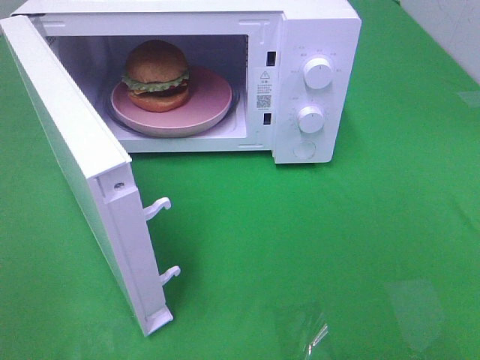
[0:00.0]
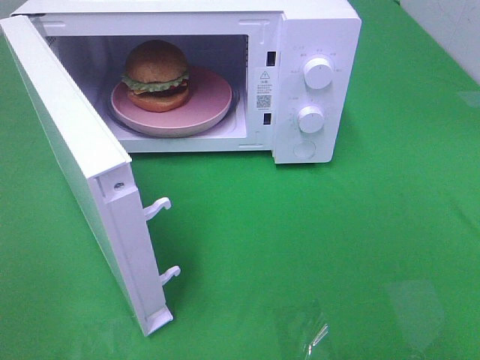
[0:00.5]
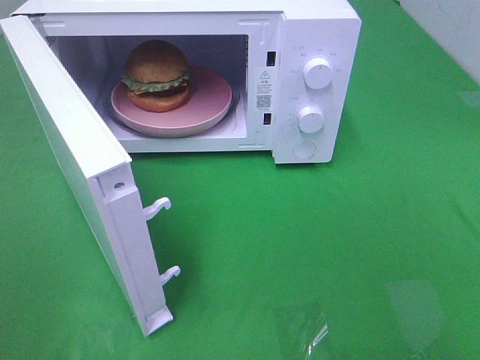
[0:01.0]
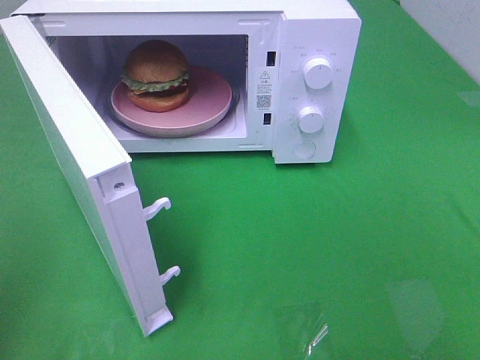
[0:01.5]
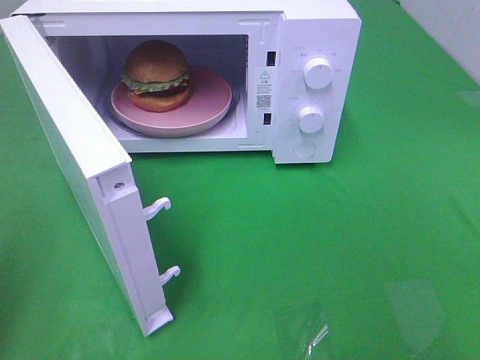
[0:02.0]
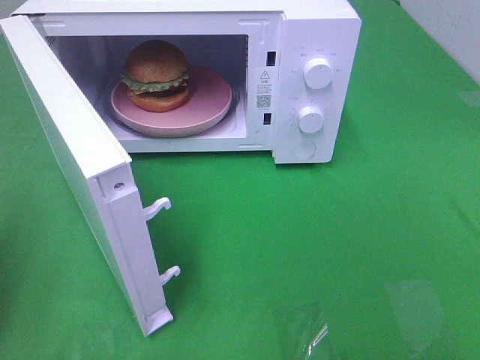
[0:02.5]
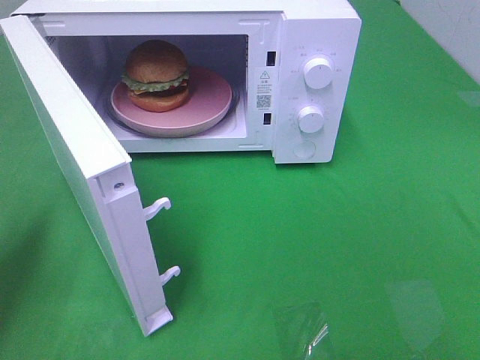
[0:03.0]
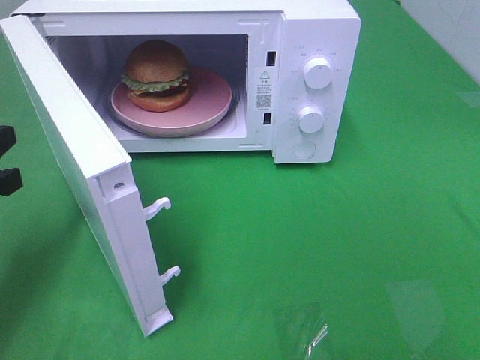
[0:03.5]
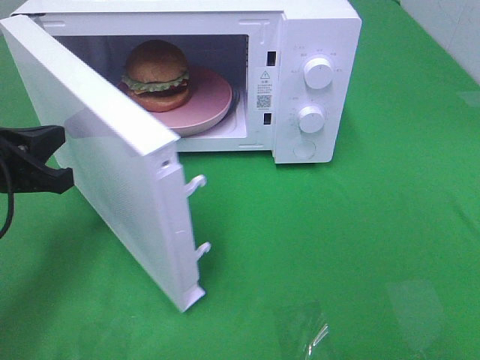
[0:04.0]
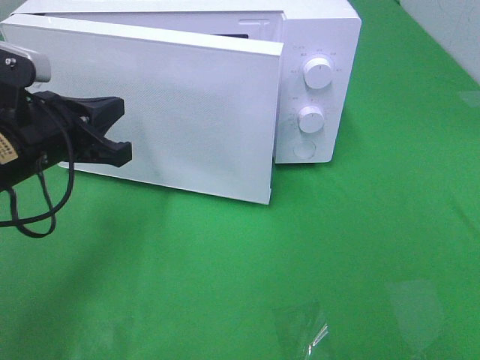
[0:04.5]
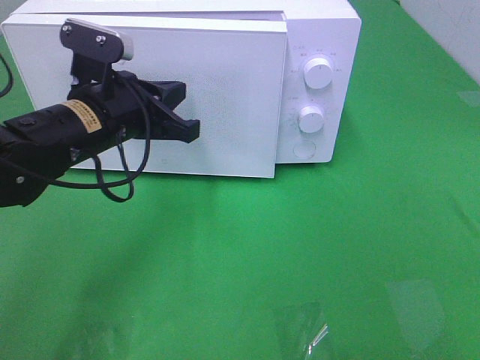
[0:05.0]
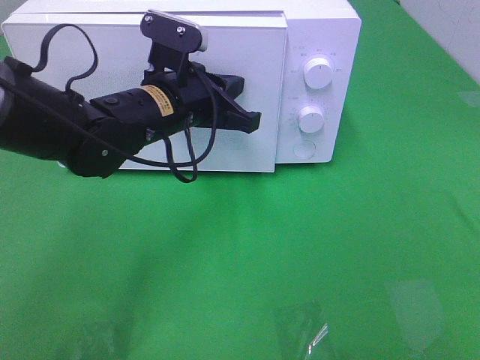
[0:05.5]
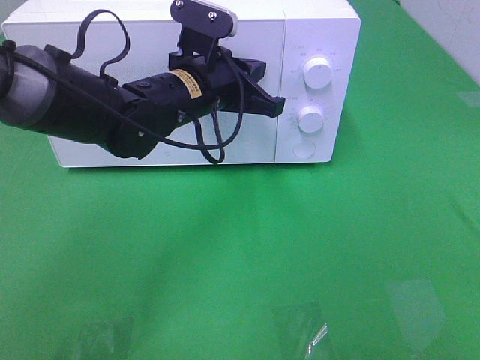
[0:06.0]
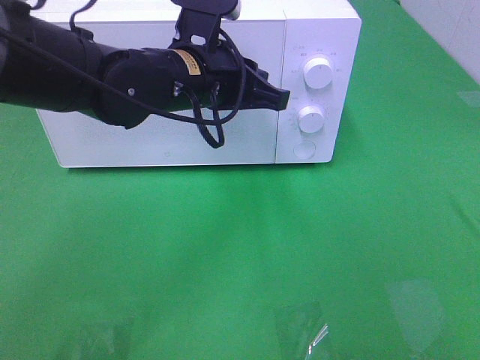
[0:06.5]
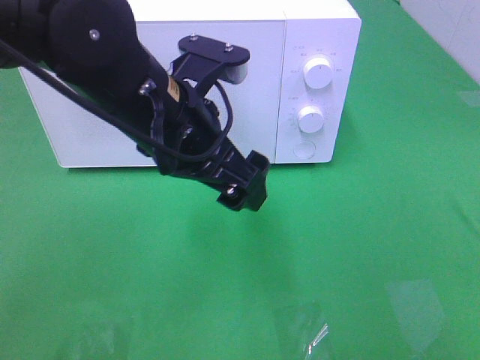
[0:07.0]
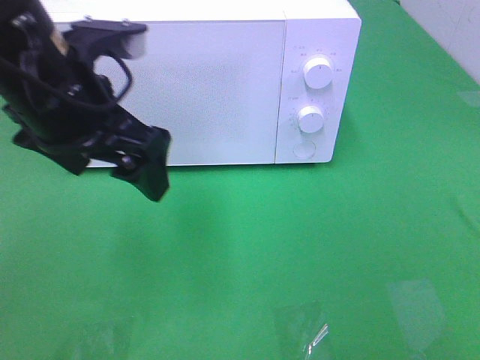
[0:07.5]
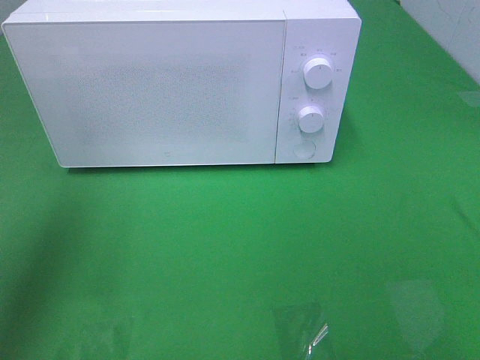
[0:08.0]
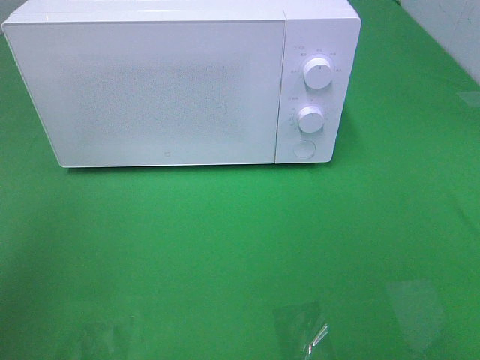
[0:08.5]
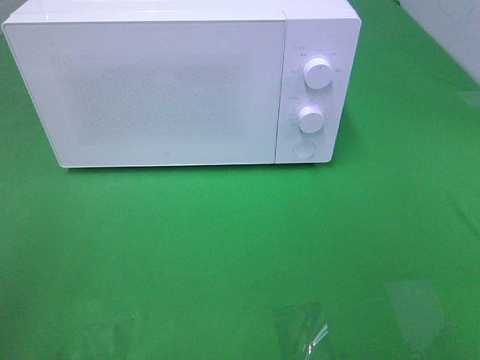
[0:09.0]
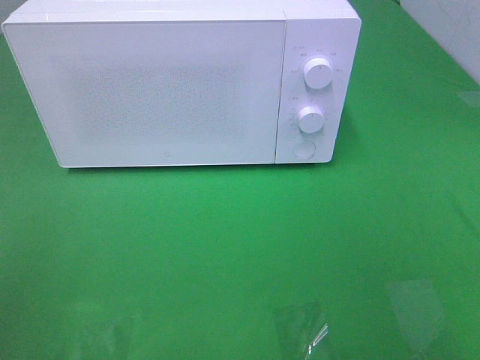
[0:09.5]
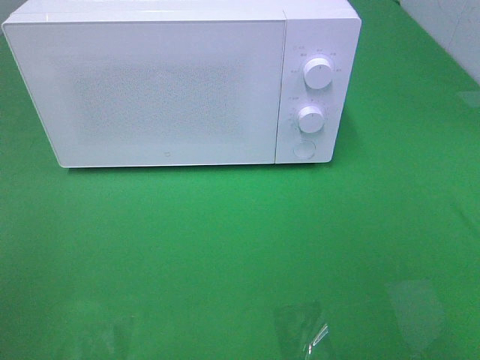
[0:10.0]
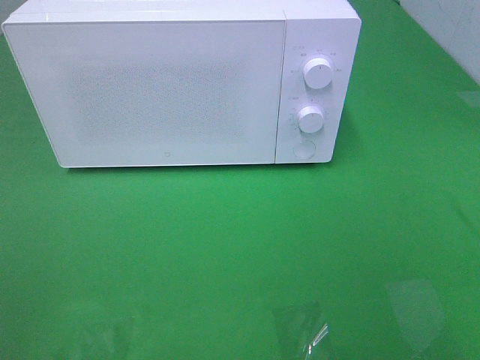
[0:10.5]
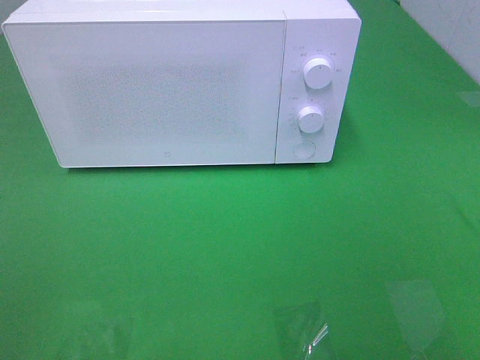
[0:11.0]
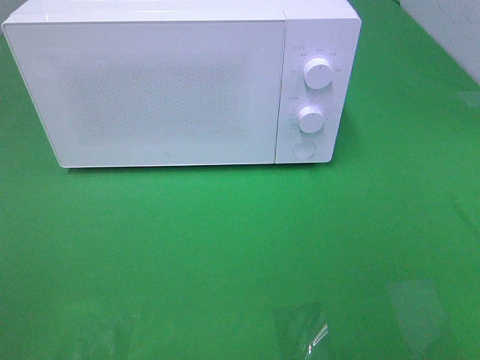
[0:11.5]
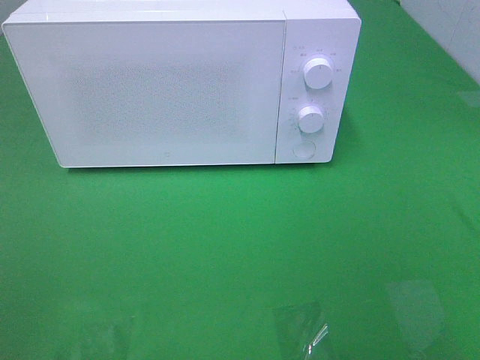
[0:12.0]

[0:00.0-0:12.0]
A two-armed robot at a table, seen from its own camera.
Task of the whole recording: Heat the burger.
Step, 0:00.0 to 0:06.0: Left hand: close the microwave door.
0:02.0 to 0:04.0: The left gripper shifts about 20 cm forward, downward and to the right.
0:04.0 to 0:06.0: The left gripper moves to the right and forward, approximately 25 cm.
0:06.0 to 0:08.0: The left gripper is displaced to the left, upward and backward by approximately 35 cm, and opens its fingers.
0:08.0 to 0:10.0: The left gripper goes some 20 cm backward and downward.

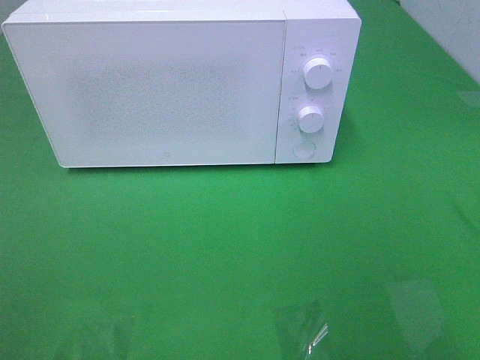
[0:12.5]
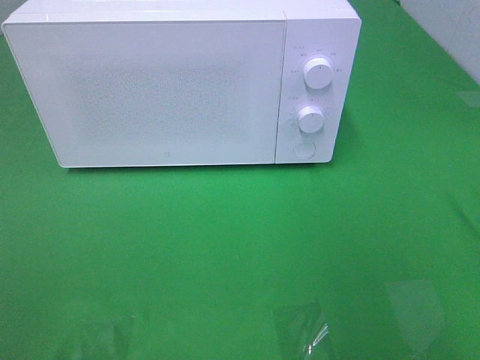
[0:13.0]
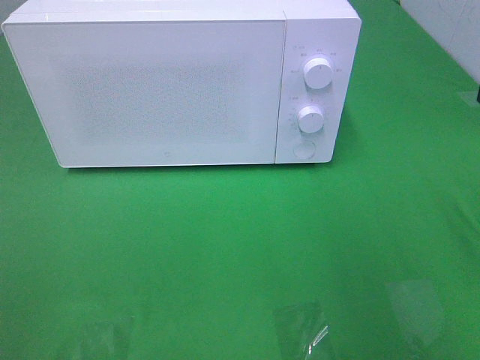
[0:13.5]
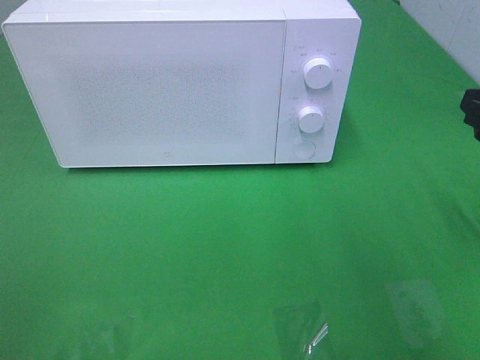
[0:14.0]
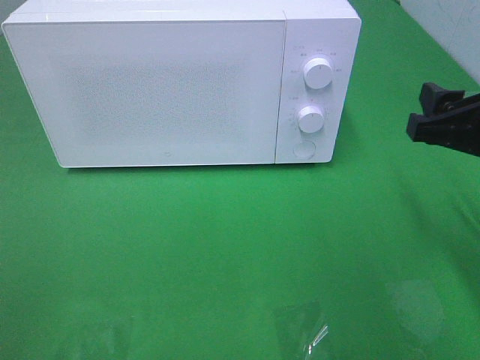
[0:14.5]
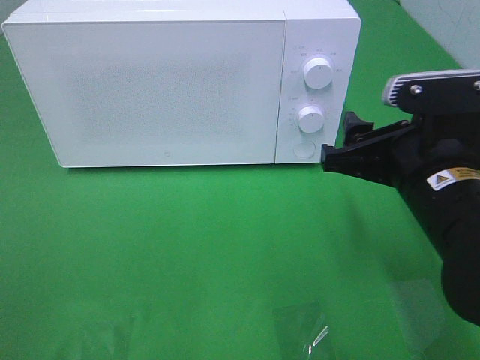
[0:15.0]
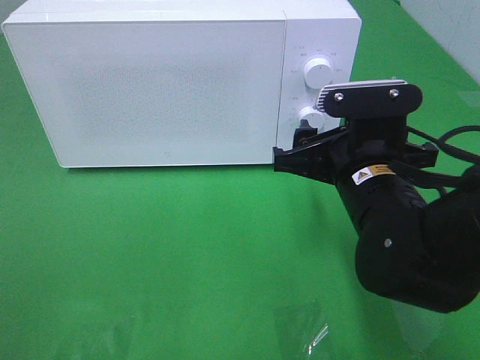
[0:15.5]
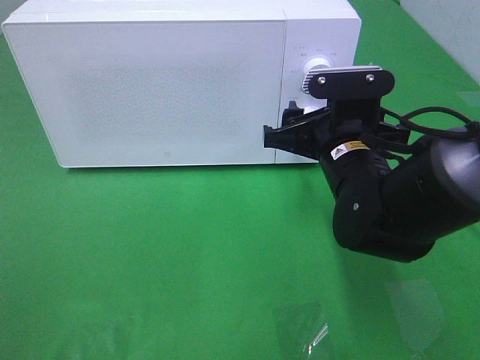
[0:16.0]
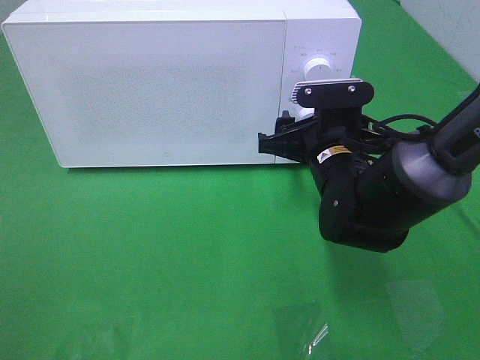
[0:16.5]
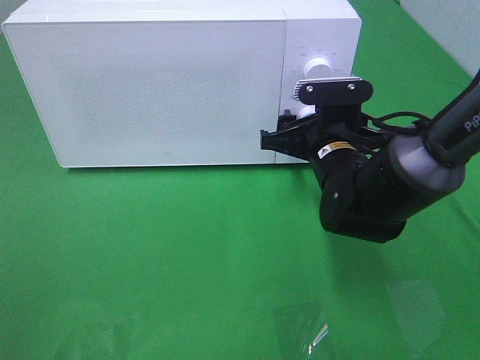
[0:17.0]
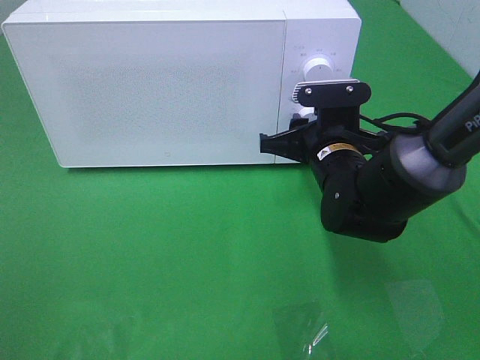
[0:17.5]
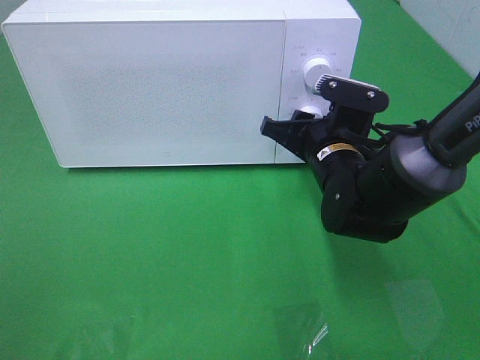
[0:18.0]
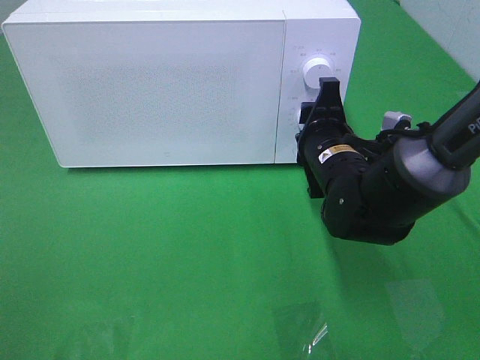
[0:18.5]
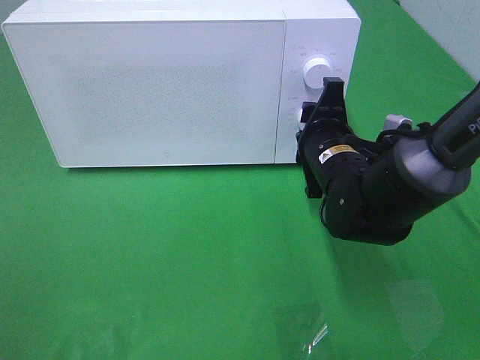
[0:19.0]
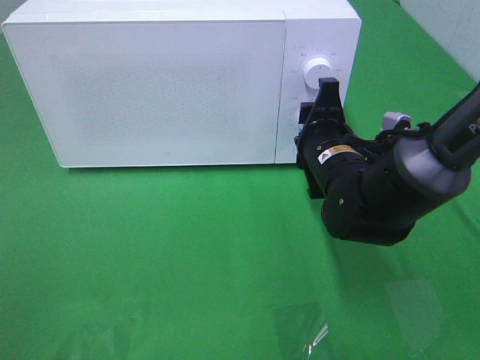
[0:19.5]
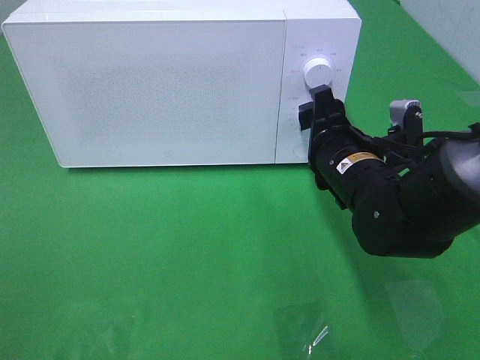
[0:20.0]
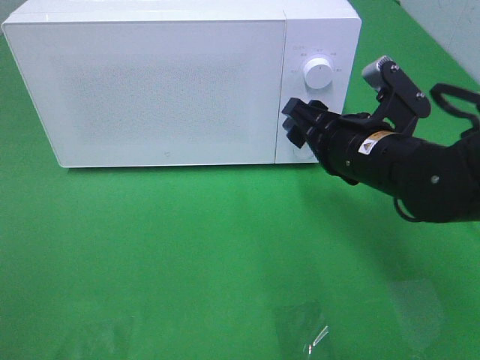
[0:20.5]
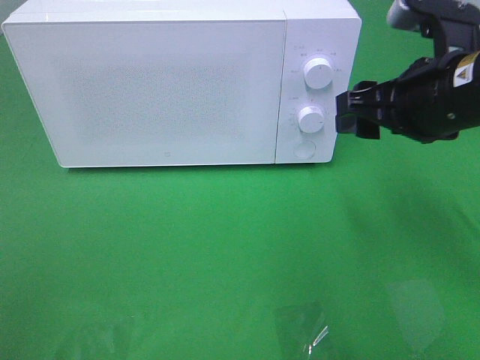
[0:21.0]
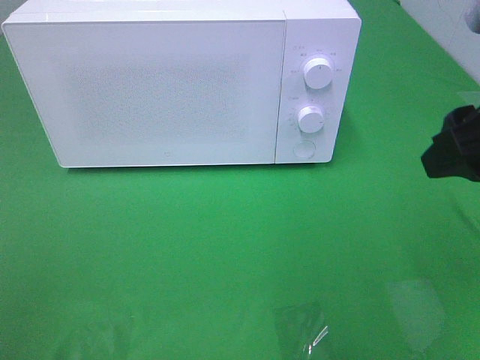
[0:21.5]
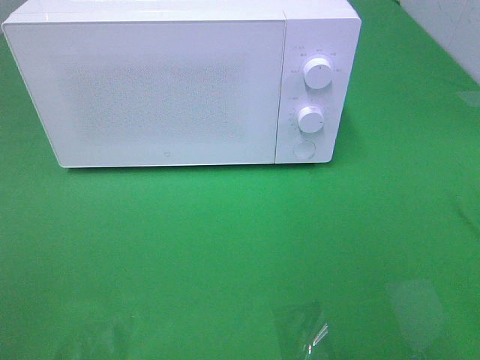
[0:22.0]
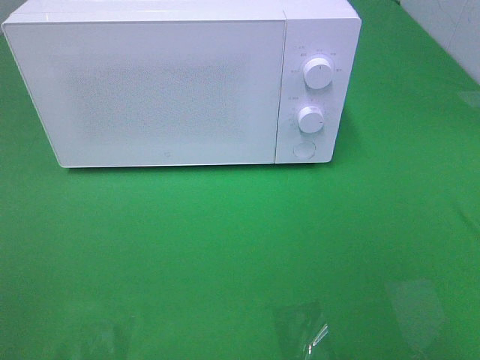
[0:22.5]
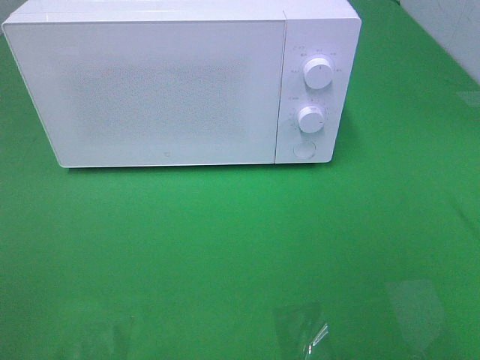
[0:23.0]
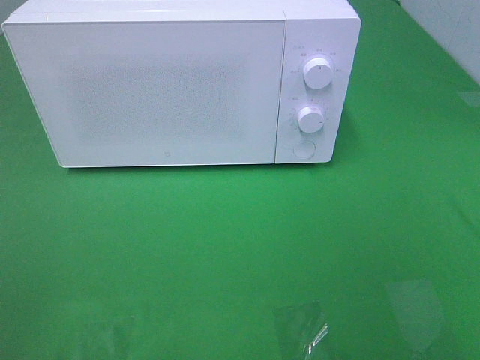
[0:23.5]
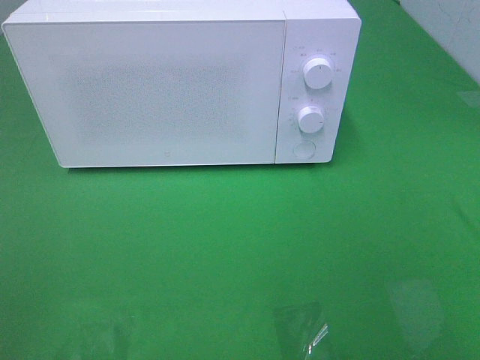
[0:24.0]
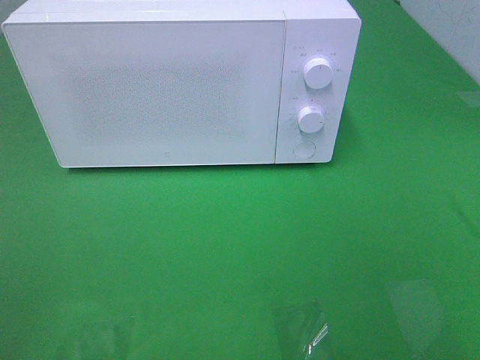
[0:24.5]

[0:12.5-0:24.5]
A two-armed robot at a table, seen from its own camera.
Task of the whole recording: Heat the burger.
Step, 0:12.5 to 0:19.5: Right hand: twist timer button.
0:12.5 to 0:14.5: The right gripper travels forward and downward by some 15 cm.
0:14.5 to 0:16.5: The right gripper travels to the left, forward and downward by roughly 20 cm.
0:18.5 to 0:20.5: The right gripper ends up some 5 cm from where it was.
0:20.5 to 0:22.5: The right gripper heads backward, to the right and upward, covering approximately 30 cm.

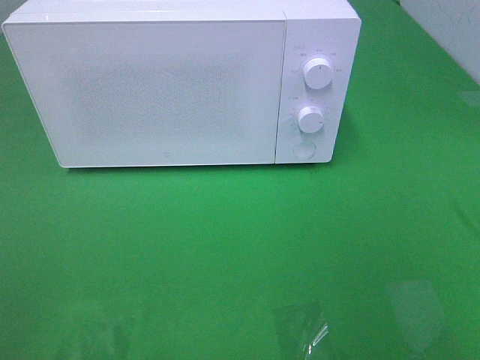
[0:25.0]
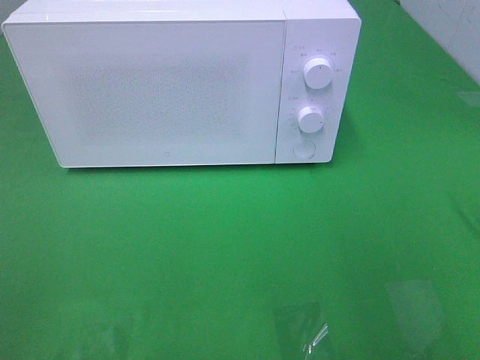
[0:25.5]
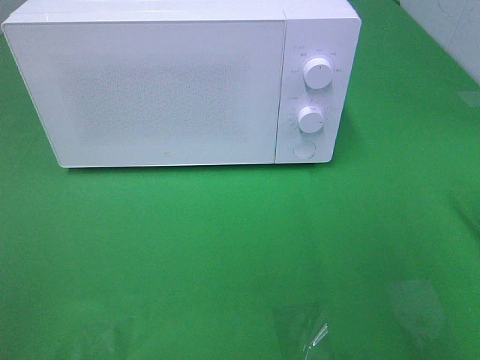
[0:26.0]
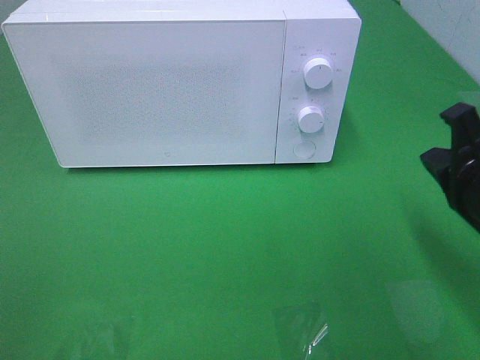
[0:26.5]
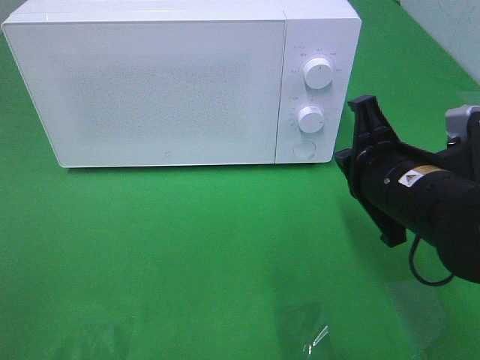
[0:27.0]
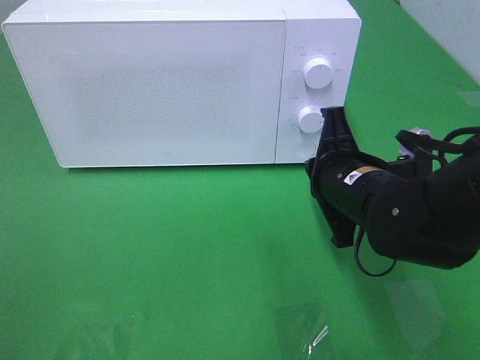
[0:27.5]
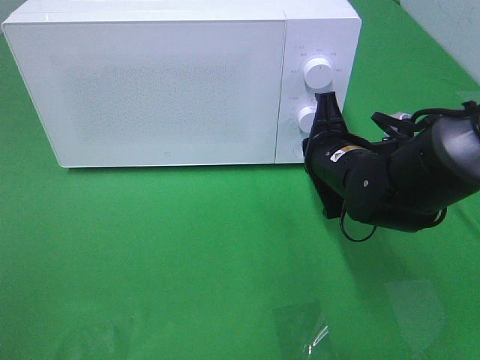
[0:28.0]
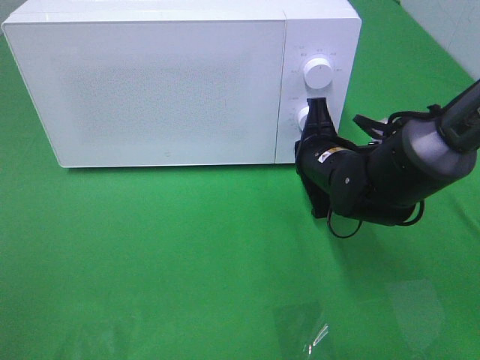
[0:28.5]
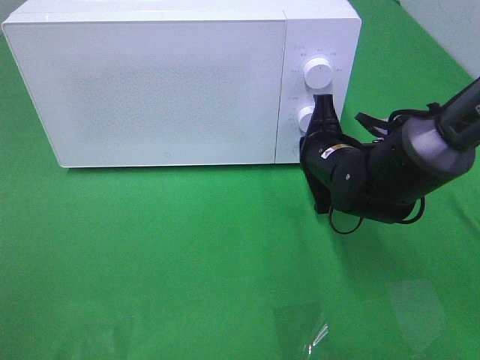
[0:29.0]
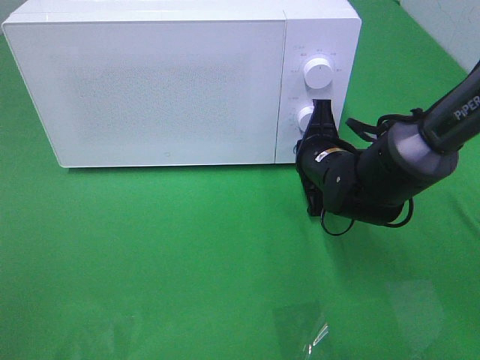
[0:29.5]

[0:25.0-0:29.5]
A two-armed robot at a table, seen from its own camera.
Task of the whole recording: Heat the burger.
0:25.0 to 0:27.0: The right gripper travels forward, downward and to the left by roughly 25 cm, and closes up.
0:27.0 to 0:29.5: The right gripper moves forward and downward, approximately 15 cm.
